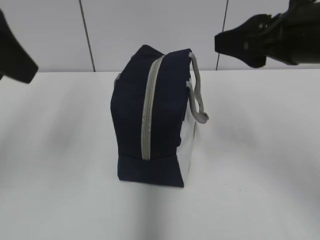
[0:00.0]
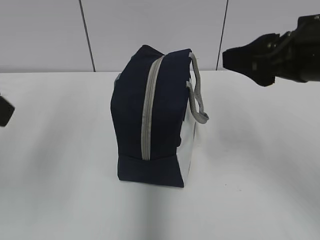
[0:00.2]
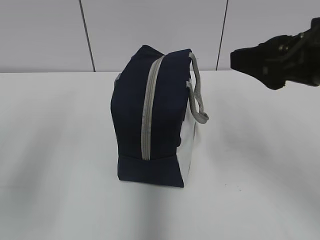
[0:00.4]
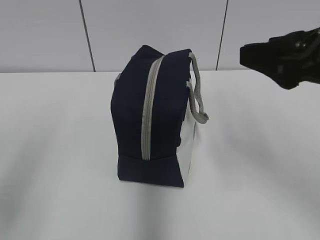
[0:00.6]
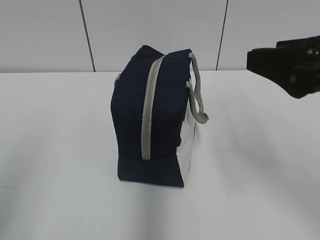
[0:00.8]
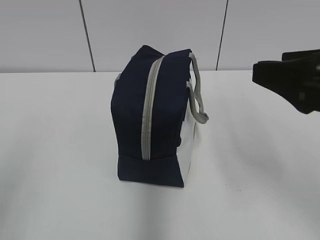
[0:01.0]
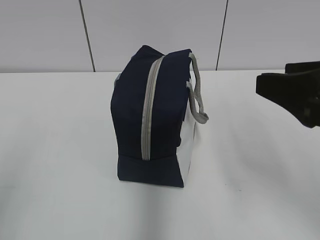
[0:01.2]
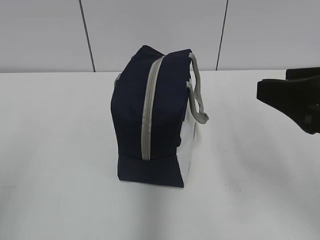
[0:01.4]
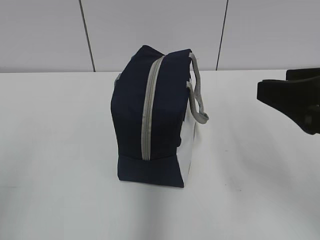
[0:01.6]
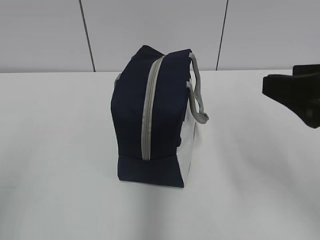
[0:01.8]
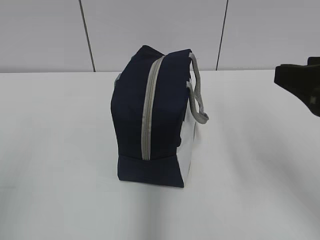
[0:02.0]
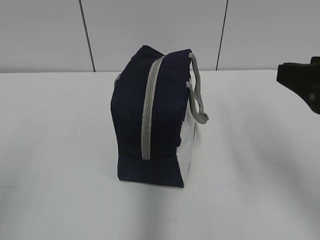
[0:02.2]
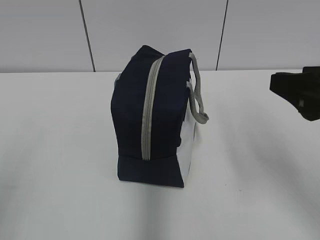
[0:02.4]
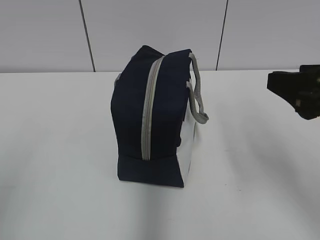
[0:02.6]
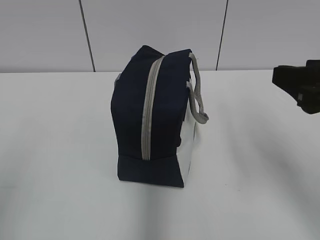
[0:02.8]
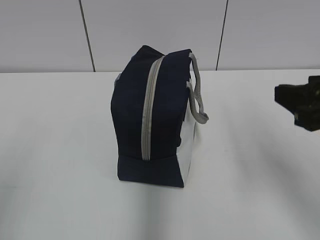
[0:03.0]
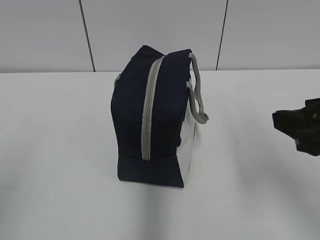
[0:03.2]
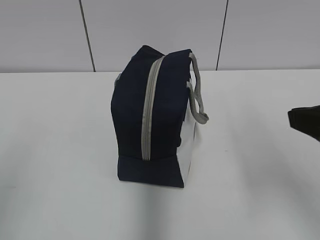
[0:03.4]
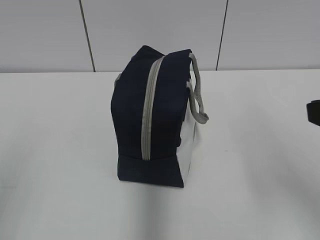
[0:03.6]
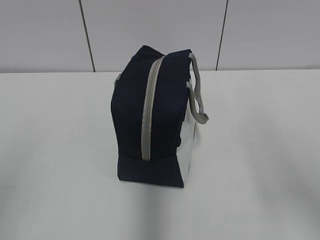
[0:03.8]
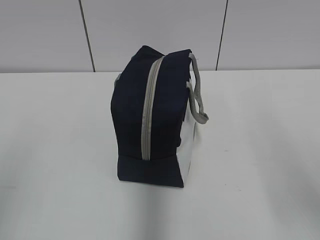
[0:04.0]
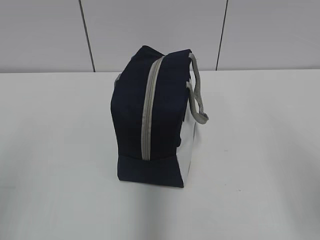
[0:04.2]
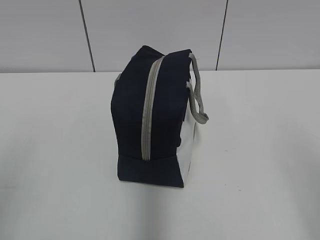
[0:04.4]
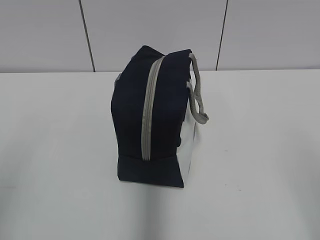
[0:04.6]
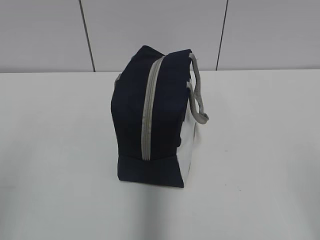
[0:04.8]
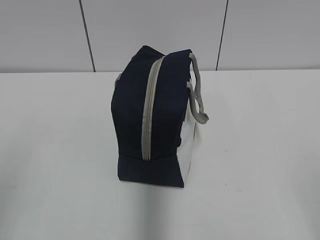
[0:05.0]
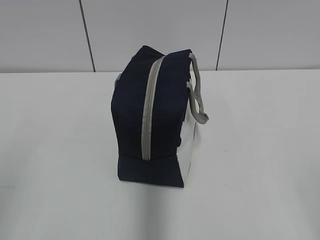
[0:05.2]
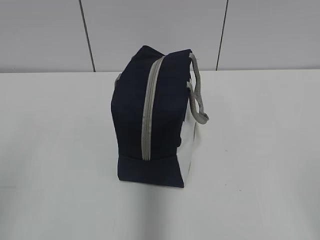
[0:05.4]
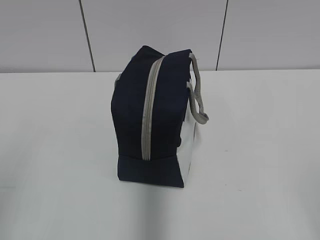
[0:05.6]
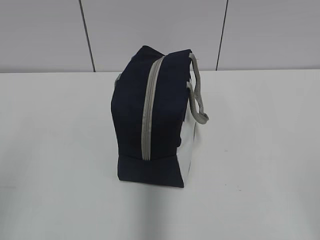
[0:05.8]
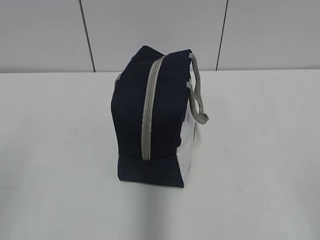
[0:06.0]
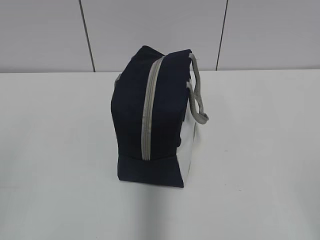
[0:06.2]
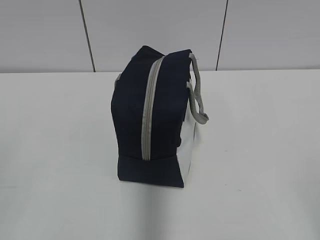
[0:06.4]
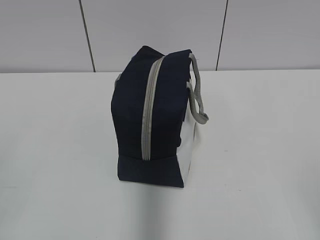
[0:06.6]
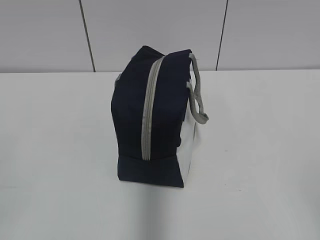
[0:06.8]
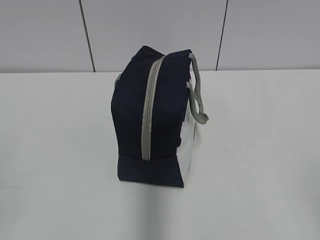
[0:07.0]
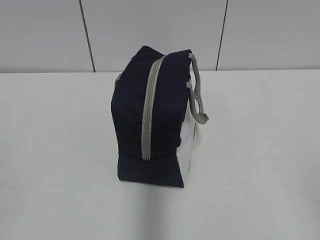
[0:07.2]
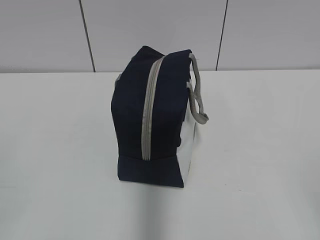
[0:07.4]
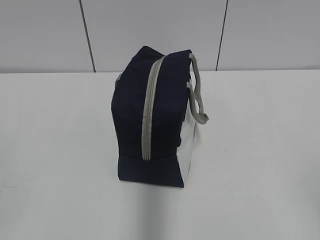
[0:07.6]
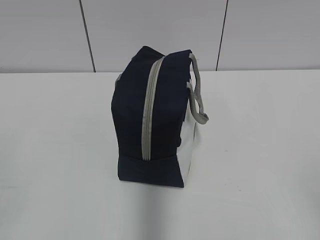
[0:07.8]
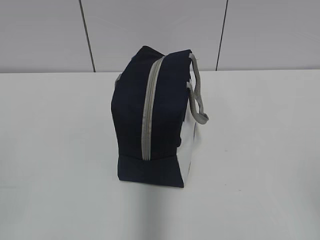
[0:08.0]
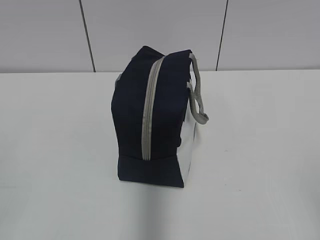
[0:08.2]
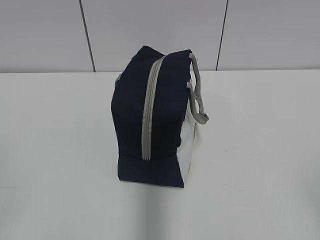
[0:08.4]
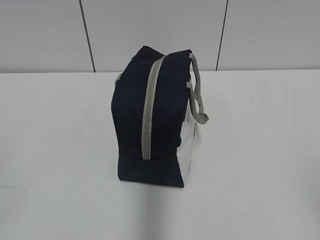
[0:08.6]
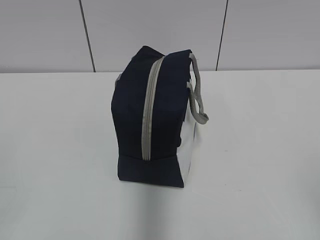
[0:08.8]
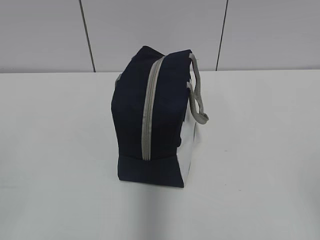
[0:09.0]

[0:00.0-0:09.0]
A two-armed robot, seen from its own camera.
0:00.0 to 0:01.6: The right gripper goes roughly 10 cm backward. Meanwhile the left gripper moves backward, downward and to the left, roughly 20 cm.
0:01.6 to 0:03.0: The grippers make only small movements.
0:03.0 to 0:04.4: The right gripper moves backward, roughly 15 cm.
0:07.6 to 0:09.0: Both grippers stay about where they are.
